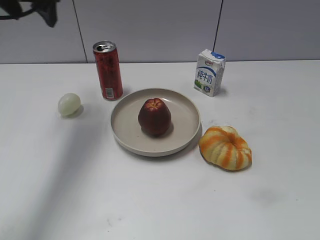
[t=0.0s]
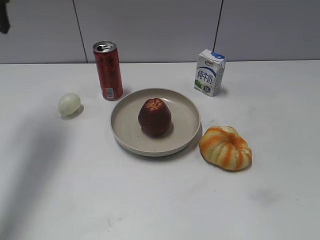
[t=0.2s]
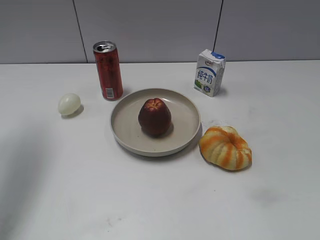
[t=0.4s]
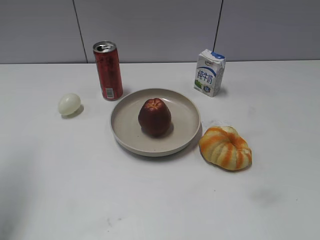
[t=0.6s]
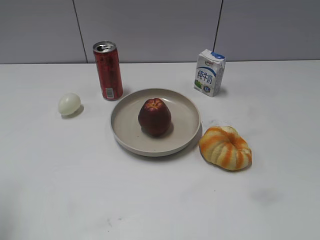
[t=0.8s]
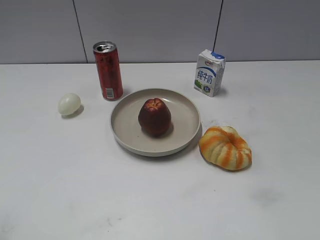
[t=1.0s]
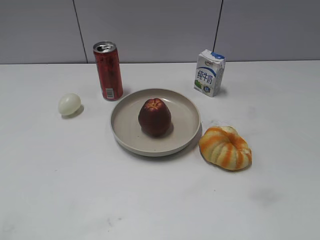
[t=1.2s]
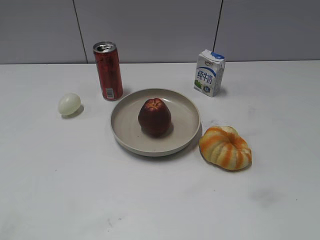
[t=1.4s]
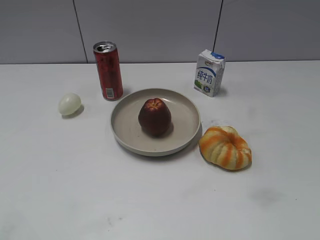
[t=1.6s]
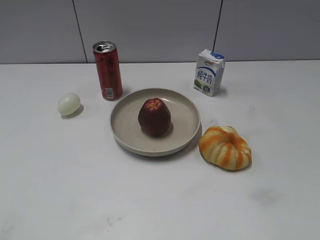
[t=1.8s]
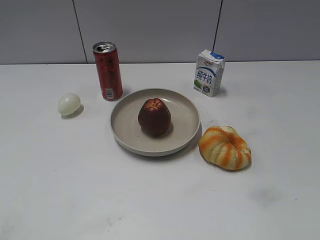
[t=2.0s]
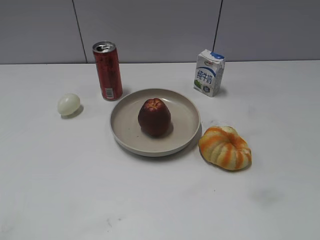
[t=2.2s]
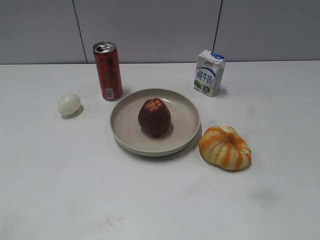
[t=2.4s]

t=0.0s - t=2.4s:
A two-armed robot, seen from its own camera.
t=0.0s - t=1.2s: The left gripper travels backward by approximately 35 cm.

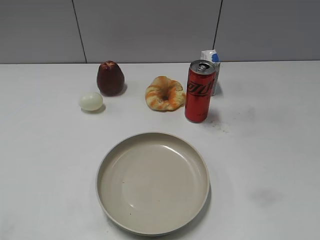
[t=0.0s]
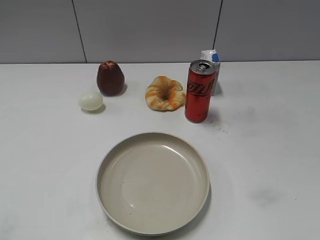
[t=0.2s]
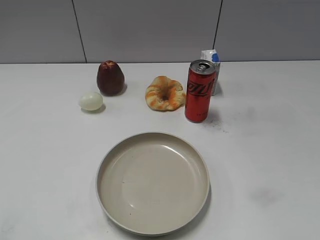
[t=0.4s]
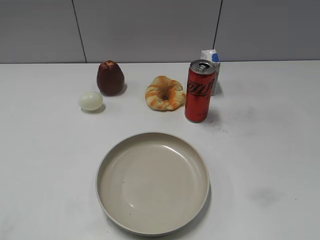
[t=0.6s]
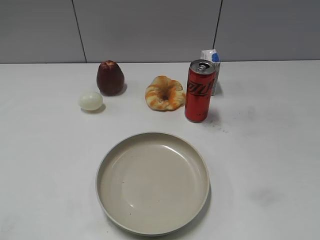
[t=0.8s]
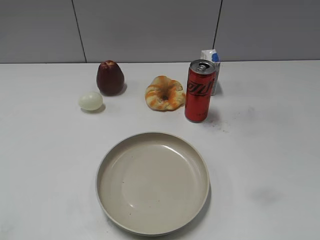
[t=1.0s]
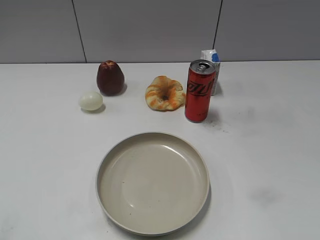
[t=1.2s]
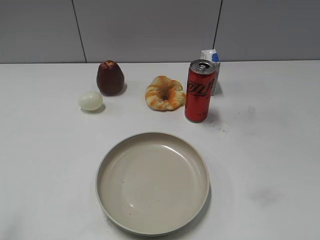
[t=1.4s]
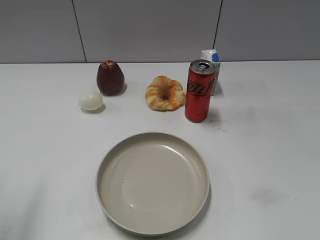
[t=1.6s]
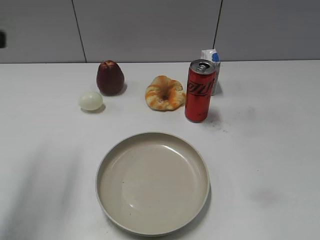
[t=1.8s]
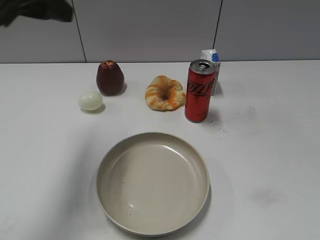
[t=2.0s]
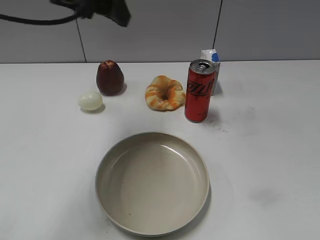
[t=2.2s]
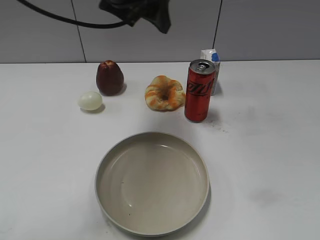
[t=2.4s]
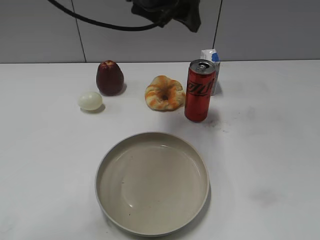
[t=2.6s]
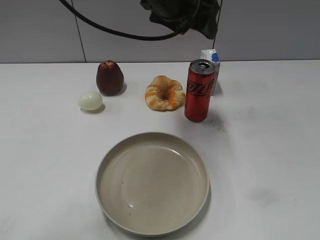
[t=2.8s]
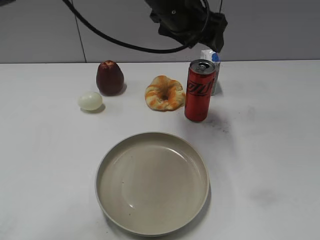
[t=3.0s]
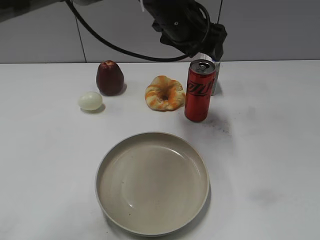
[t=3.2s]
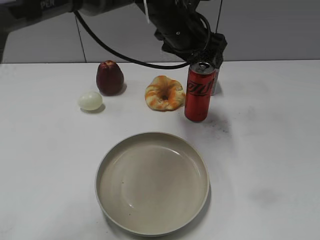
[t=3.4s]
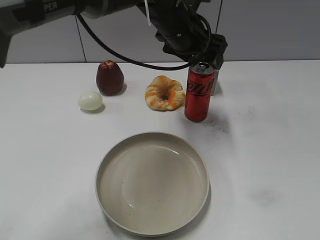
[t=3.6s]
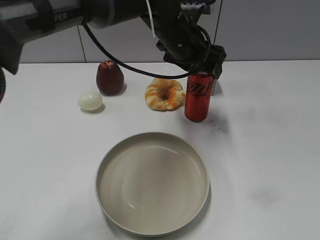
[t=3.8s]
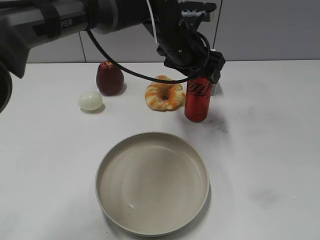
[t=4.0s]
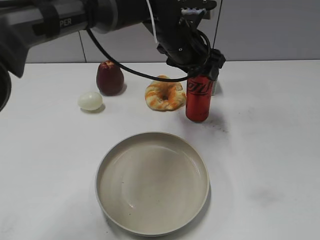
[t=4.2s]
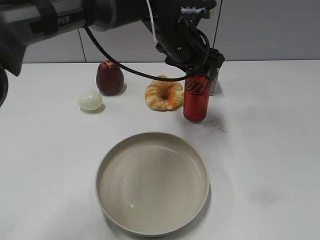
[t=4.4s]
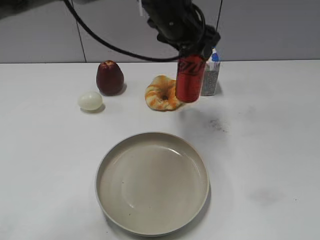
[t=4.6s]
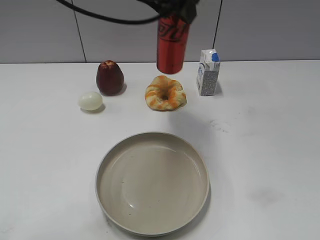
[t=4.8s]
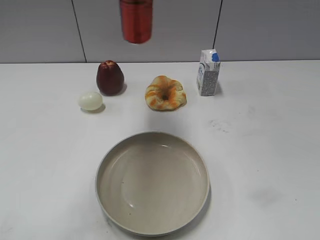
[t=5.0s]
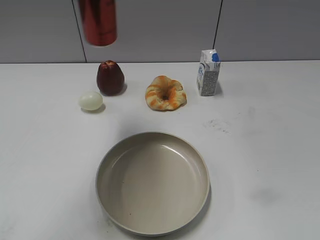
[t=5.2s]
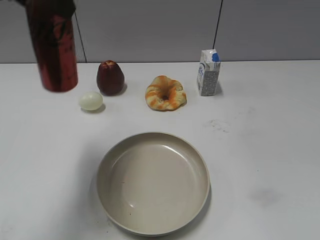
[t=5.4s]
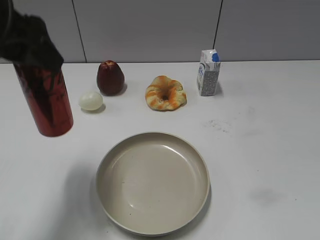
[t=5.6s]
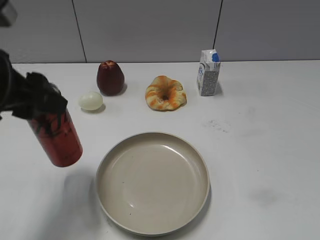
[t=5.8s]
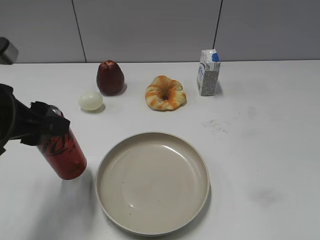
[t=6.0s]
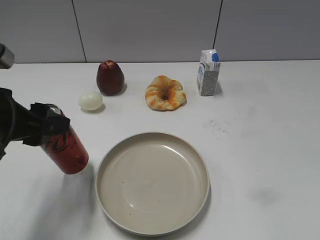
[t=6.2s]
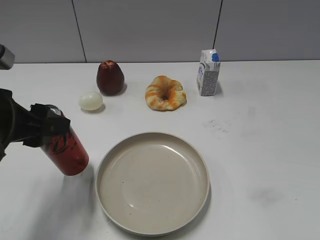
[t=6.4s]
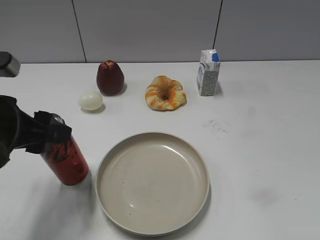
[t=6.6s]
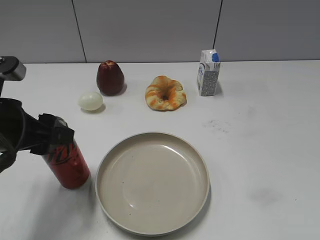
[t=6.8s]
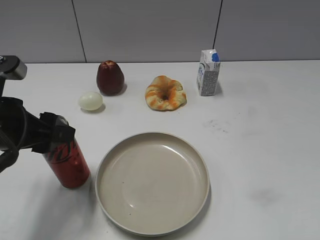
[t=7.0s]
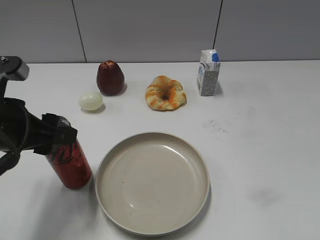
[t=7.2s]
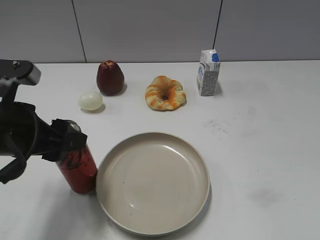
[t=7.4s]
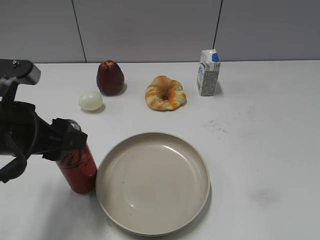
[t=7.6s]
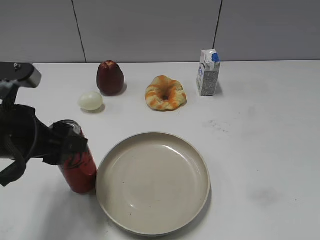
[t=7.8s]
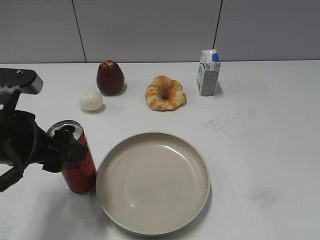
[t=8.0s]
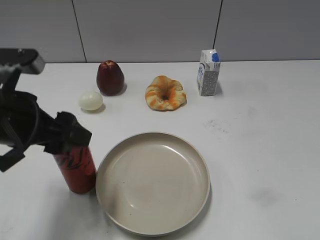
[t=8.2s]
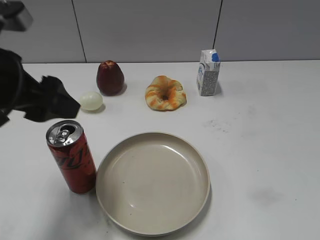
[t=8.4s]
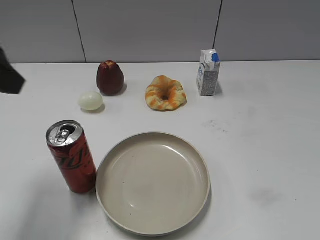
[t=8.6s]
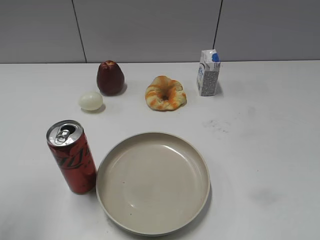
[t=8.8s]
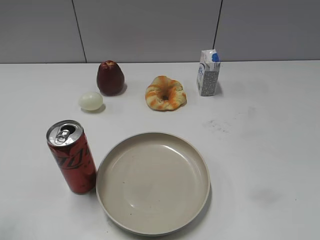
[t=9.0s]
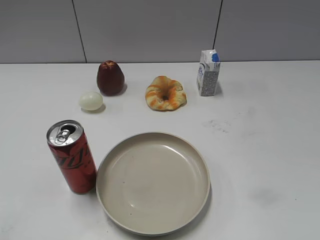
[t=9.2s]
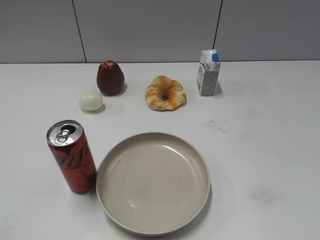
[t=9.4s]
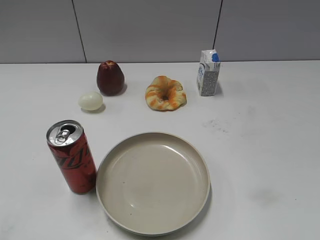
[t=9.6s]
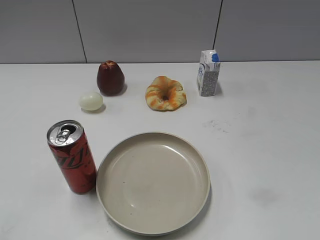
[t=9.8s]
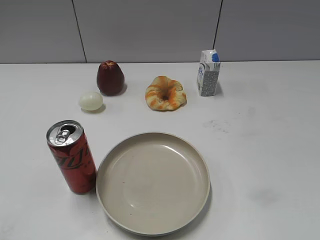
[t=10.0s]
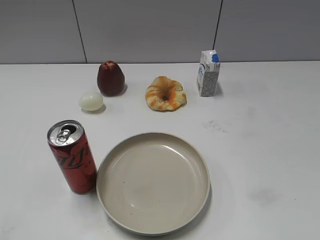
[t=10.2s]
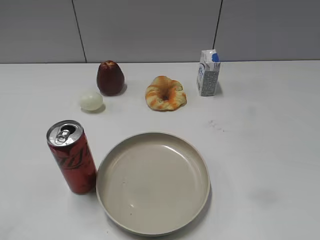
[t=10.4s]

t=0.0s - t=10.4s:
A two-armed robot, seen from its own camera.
Step, t=0.0s - t=4.0s: Grasp the cola with left gripper.
Step, t=4.4s - t=8.4s: Place the cola on the table with left gripper.
t=1.4s - t=3.0s: The left gripper is displaced to the right and forward by approximately 50 cm, and opens up.
t=3.0s - t=4.4s: The left gripper shifts about 5 cm downward, and closes up.
t=4.4s - t=6.0s: The left gripper heads to the left and backward, covering some 30 cm.
t=6.0s - t=7.4s: There are only small adjustments of the grippers.
t=7.4s - t=9.0s: The left gripper moves upward, to the left and backward, roughly 20 cm, and opens.

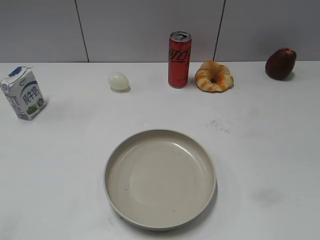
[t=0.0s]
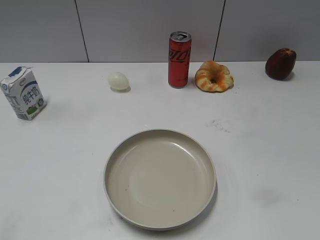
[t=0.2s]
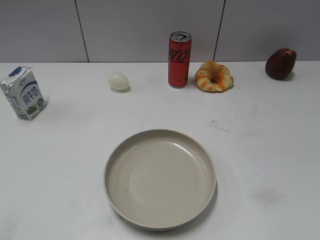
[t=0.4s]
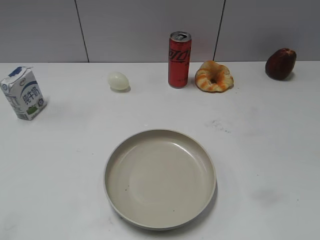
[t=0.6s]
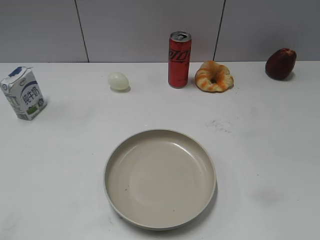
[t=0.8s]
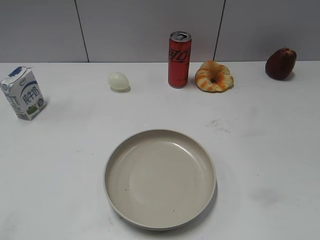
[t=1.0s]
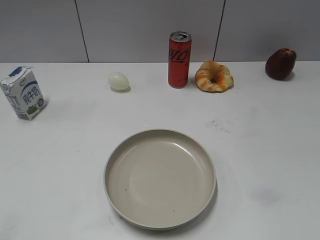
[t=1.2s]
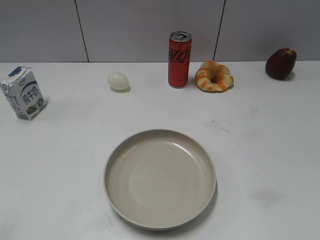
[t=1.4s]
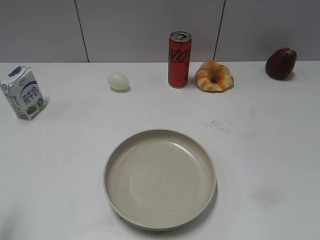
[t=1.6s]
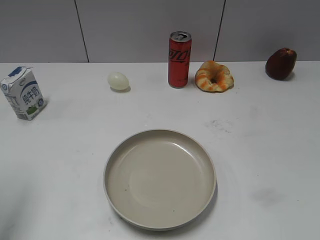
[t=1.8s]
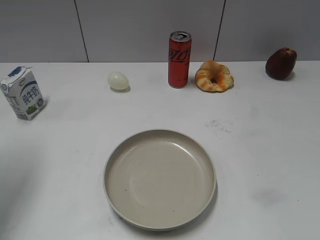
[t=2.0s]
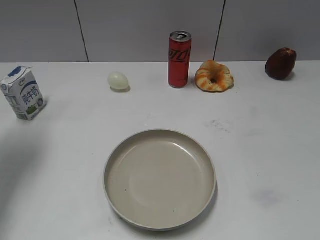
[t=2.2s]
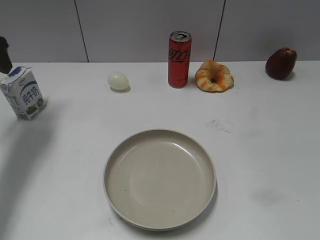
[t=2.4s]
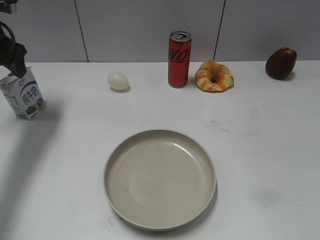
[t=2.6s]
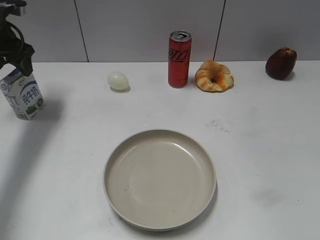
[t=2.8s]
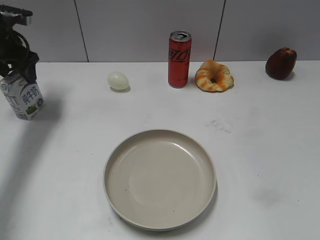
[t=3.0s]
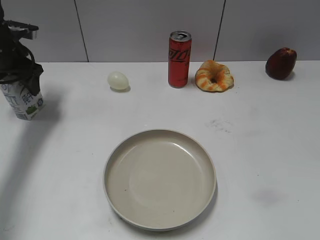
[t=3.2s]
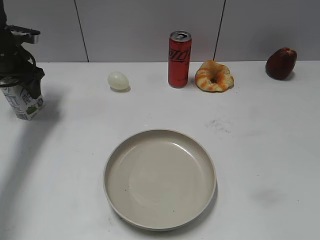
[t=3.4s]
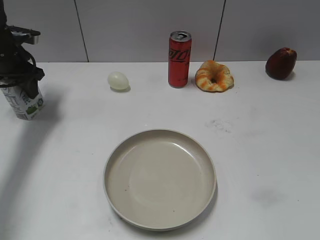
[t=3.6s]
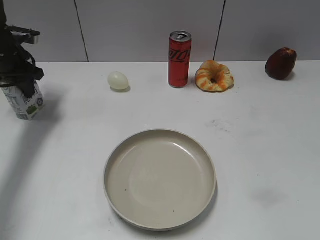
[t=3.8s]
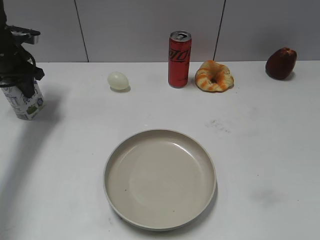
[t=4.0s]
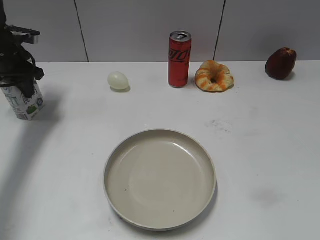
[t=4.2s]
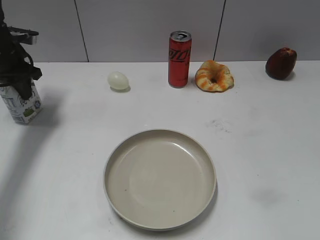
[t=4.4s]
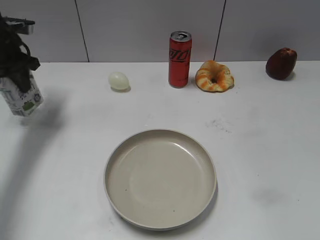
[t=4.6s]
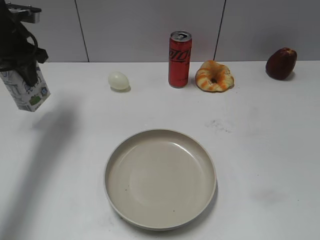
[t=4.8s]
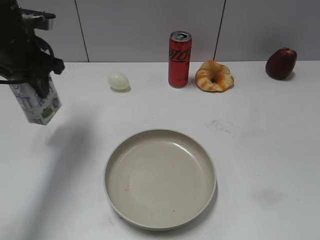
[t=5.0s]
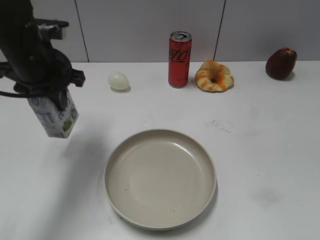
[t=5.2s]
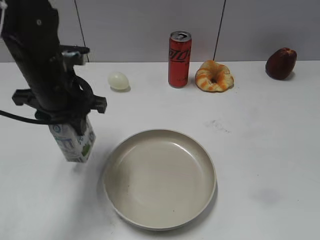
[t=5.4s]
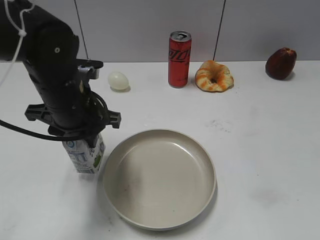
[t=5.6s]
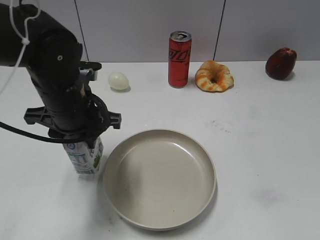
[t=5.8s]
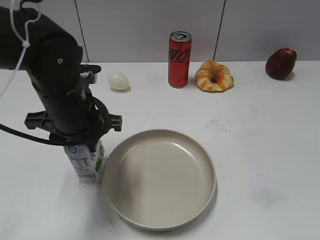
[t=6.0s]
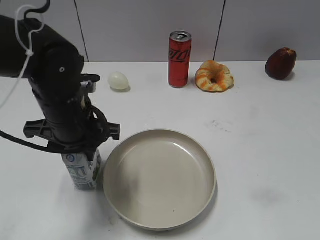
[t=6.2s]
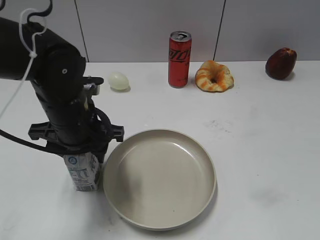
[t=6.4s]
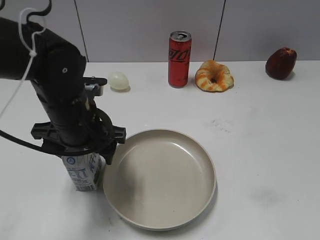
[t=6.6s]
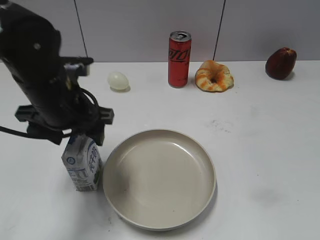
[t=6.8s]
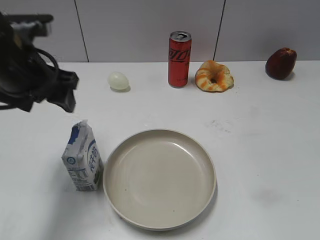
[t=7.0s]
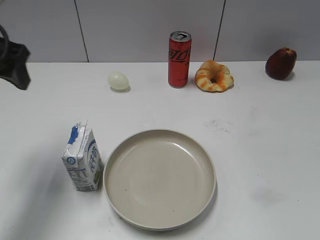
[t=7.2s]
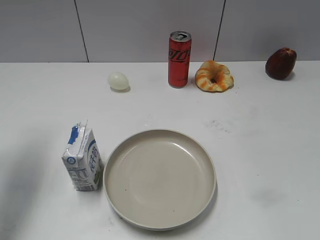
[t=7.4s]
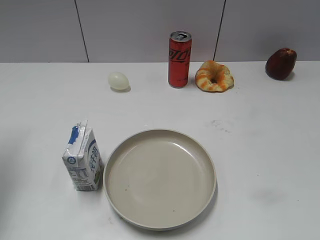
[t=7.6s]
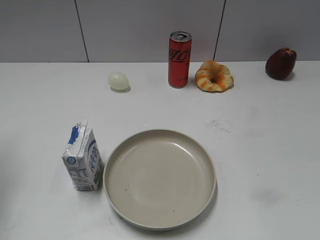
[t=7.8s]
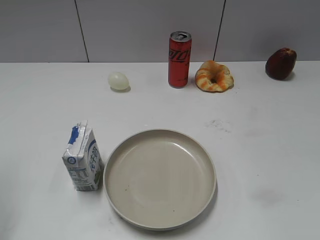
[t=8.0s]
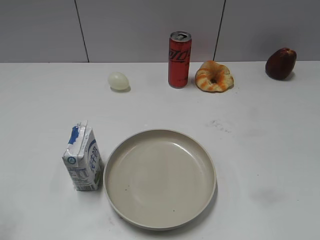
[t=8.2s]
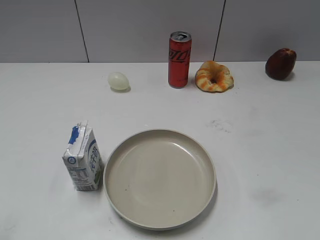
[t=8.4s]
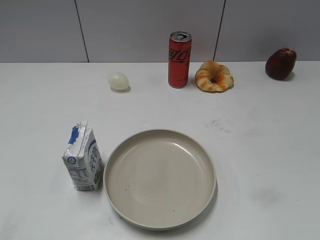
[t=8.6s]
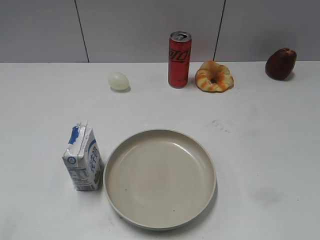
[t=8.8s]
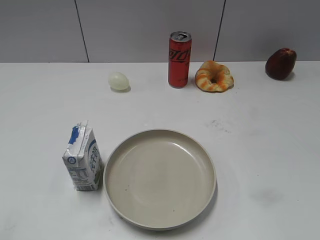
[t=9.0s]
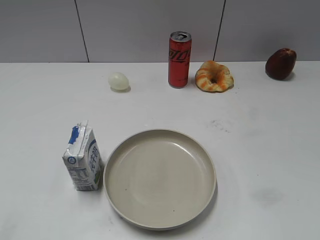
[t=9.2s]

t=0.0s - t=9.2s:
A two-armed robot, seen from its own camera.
Step, t=0.8s - t=4.0s: Grasp the milk with left gripper.
Step, t=4.2s - t=6.6s: Place the milk on the table with left gripper.
t=1.6s - t=3.0s: The left gripper moves forward, some 35 cm.
t=3.0s - t=4.6s: The left gripper closes up.
t=4.6s - t=6.2s: The left gripper goes about 25 cm backward and to the right.
t=6.2s - t=7.6s: The left gripper travels to the left and upward by approximately 25 cm, and opens up.
t=7.6s - t=9.2s: The left gripper is displaced backward by roughly 30 cm.
